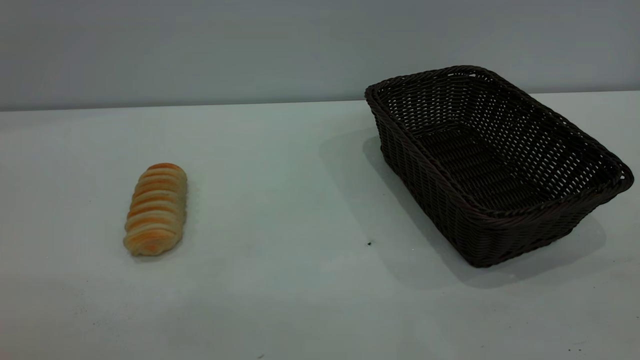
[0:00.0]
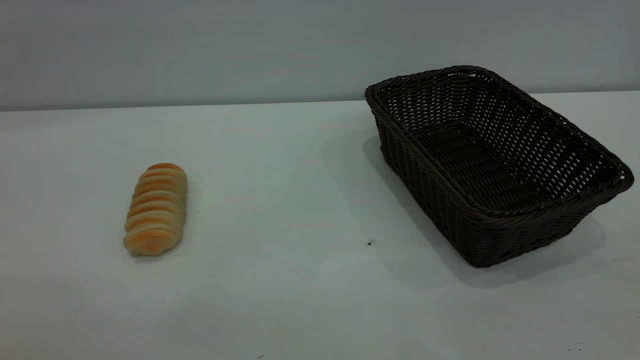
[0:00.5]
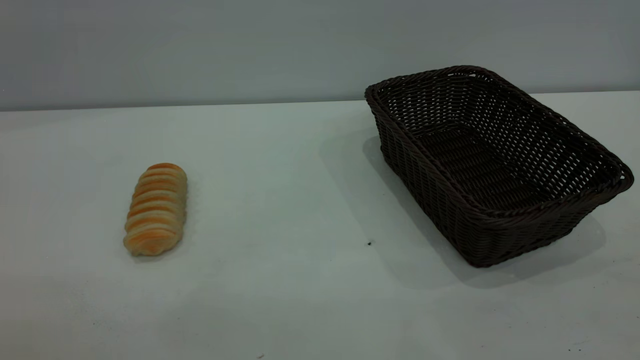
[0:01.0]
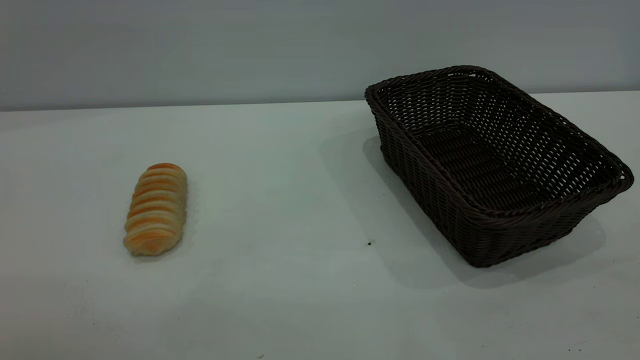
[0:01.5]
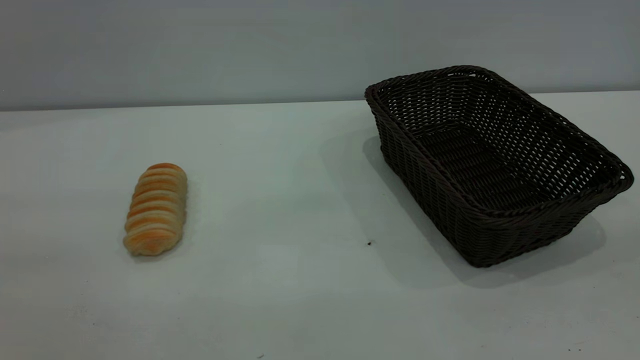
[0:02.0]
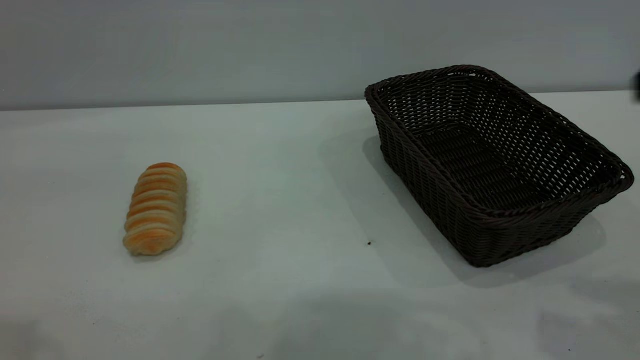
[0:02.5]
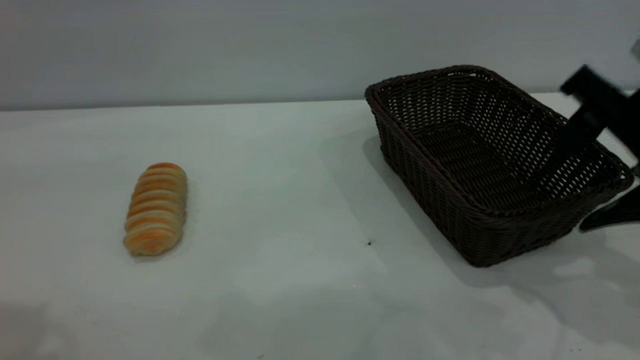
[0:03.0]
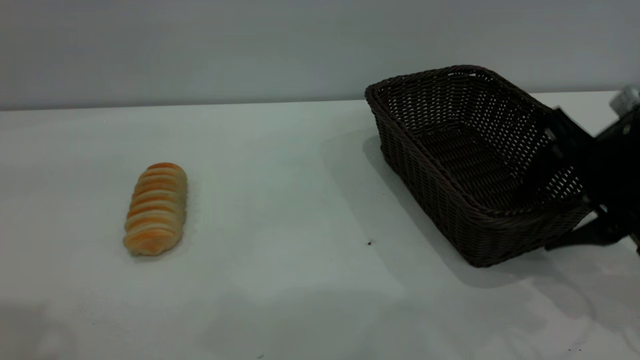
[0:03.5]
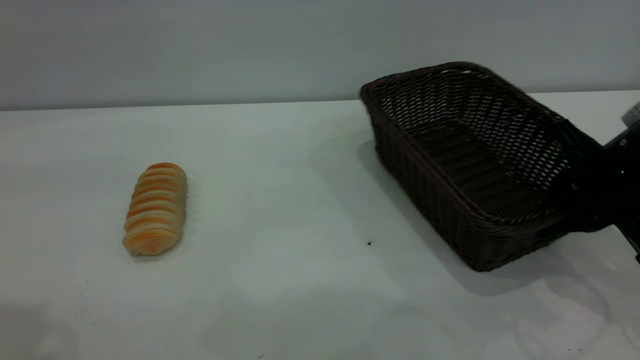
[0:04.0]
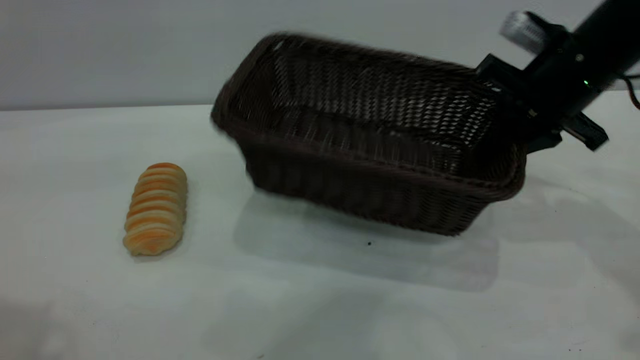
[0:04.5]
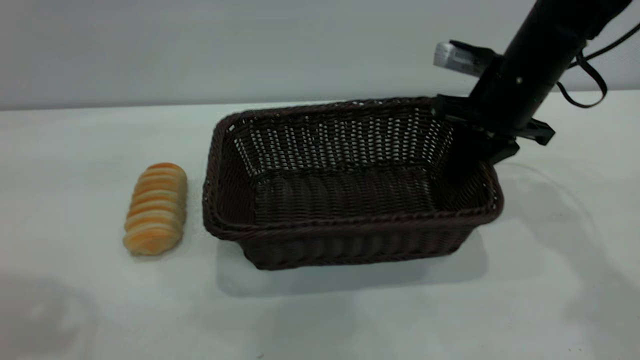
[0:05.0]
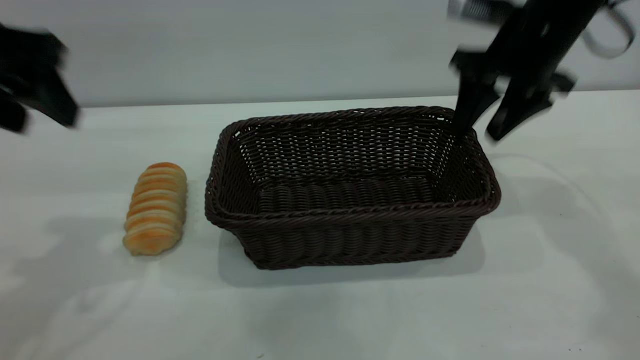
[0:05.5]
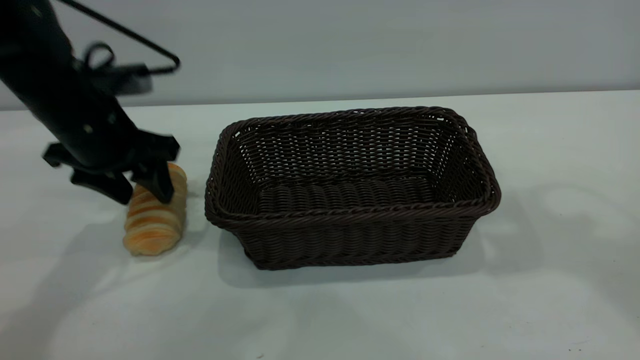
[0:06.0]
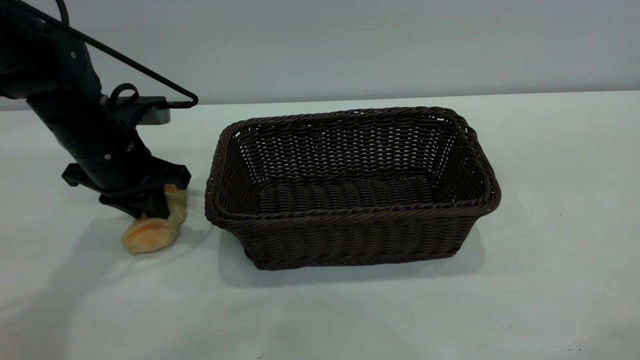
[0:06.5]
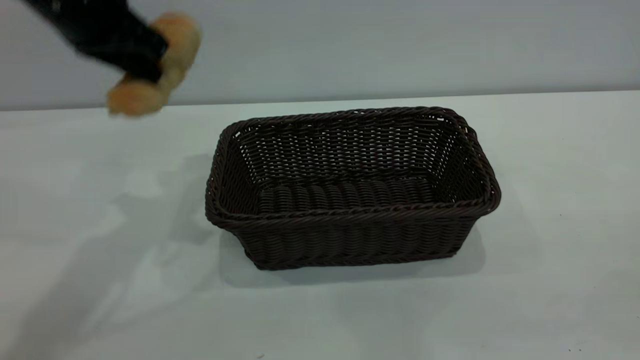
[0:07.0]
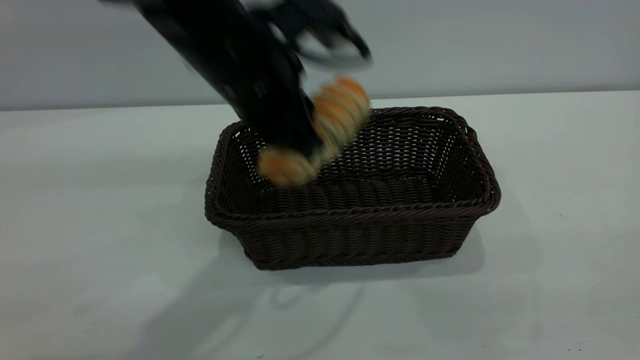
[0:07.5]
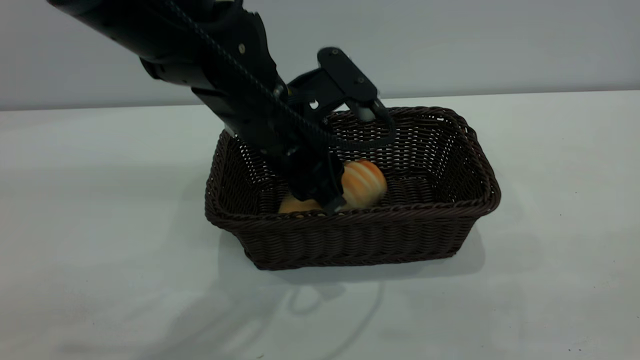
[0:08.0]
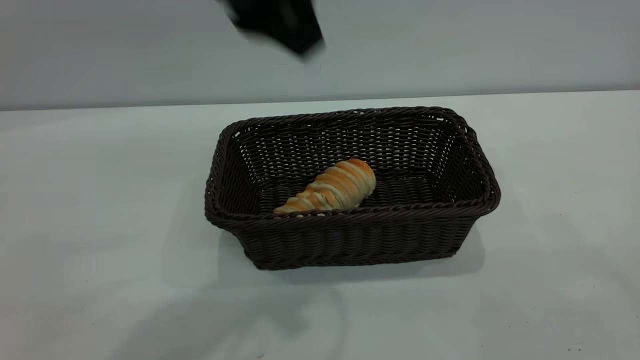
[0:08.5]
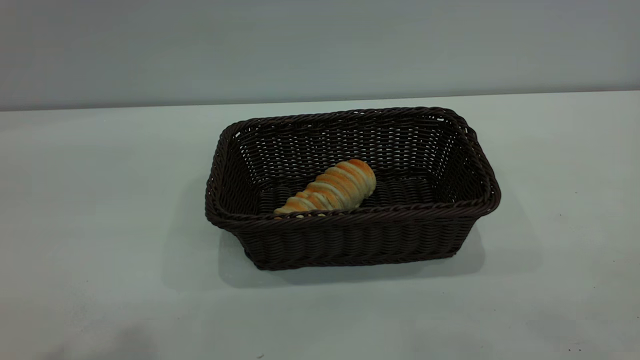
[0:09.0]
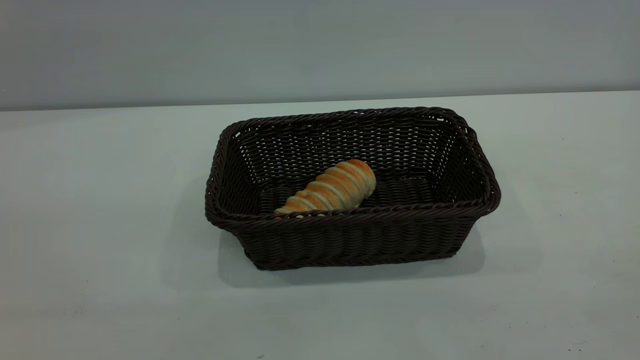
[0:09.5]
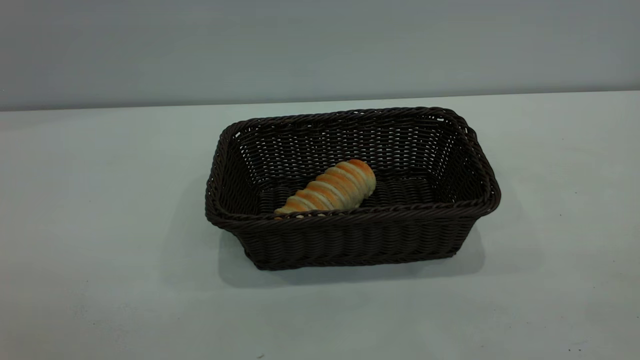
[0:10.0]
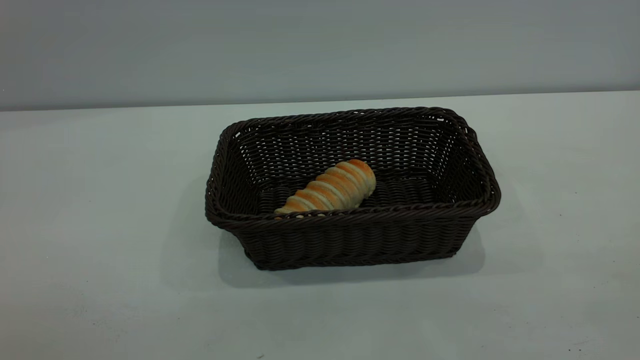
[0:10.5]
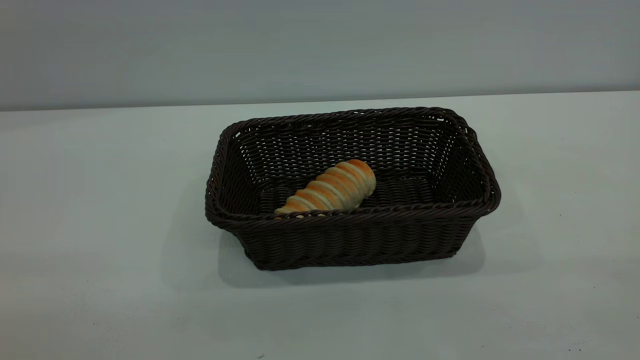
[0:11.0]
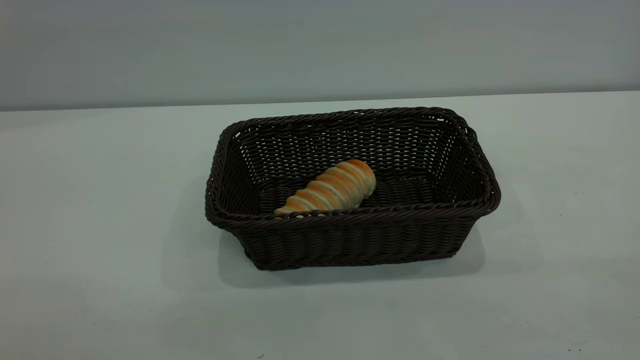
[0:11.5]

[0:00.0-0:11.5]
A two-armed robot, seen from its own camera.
Task of the whole recording: One hand grasps the black basket and places it in the middle of the table, while the other hand picks up the long bread and puts it into the black basket.
Step, 0:00.0 to 0:05.0: Move the basket to the center of view.
Step, 0:07.0 to 0:08.0: place the bread into the basket.
0:02.0 to 0:04.0: The right gripper shifts approximately 35 cm downward and forward, and closes up, while the left gripper heads forward, covering roughly 10 cm.
0:04.0 to 0:06.0: The right gripper goes approximately 30 cm upward, and opens its fingers, while the left gripper goes roughly 35 cm downward and forward.
0:06.0 to 0:07.5: The left gripper goes roughly 20 cm to the right, and closes its fingers; the right gripper is displaced backward and downward by approximately 30 cm.
0:07.5 to 0:09.5: The left gripper goes about 35 cm backward, to the left and upward, and opens up.

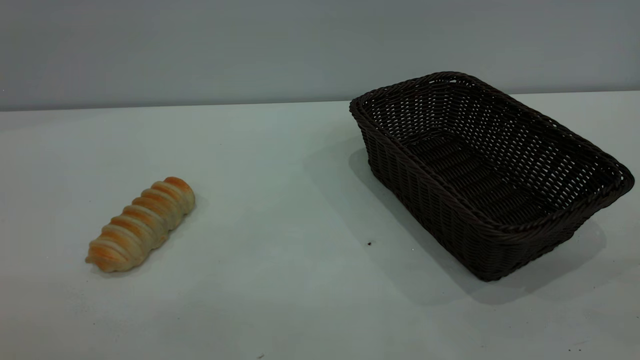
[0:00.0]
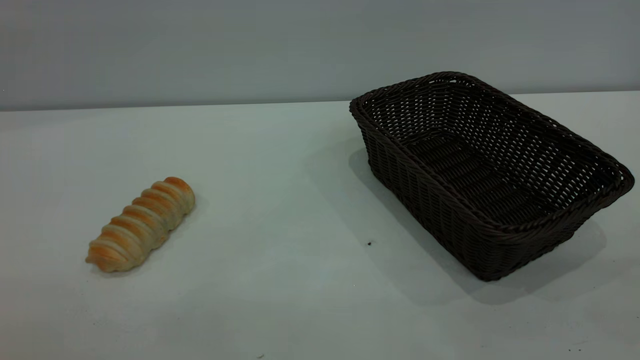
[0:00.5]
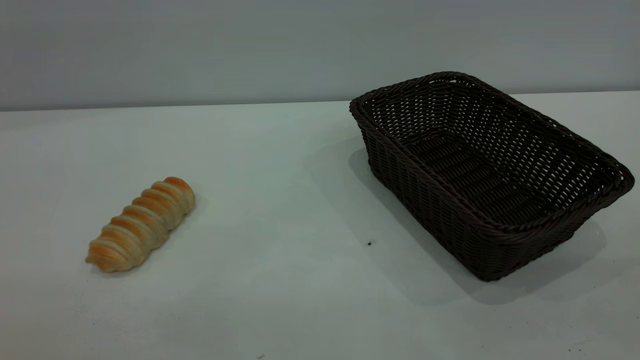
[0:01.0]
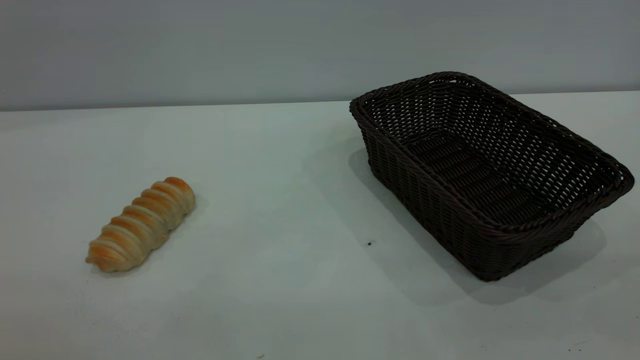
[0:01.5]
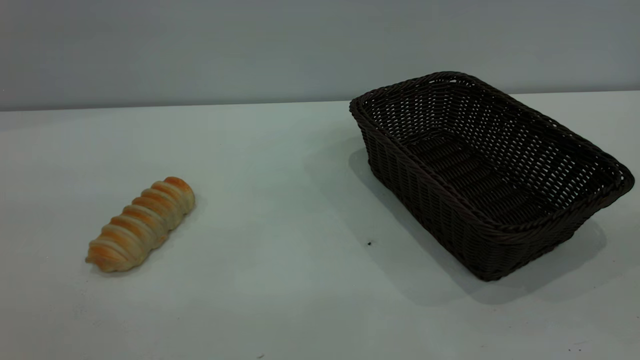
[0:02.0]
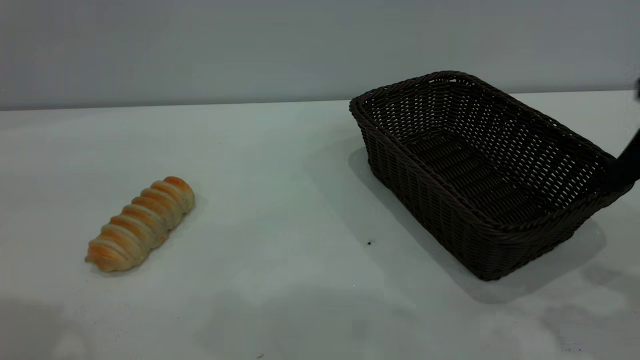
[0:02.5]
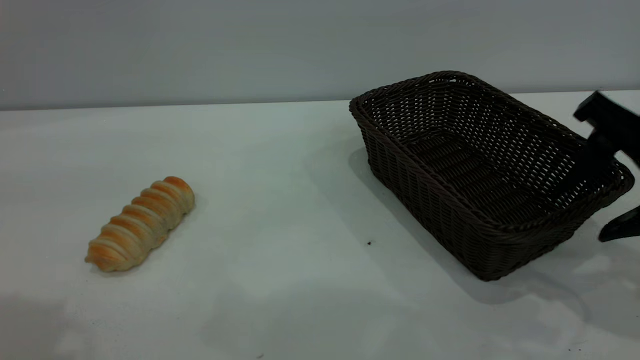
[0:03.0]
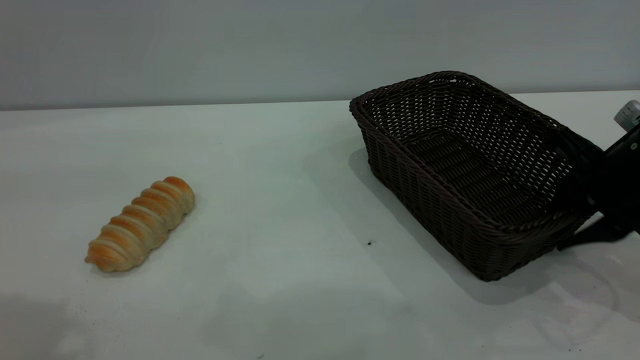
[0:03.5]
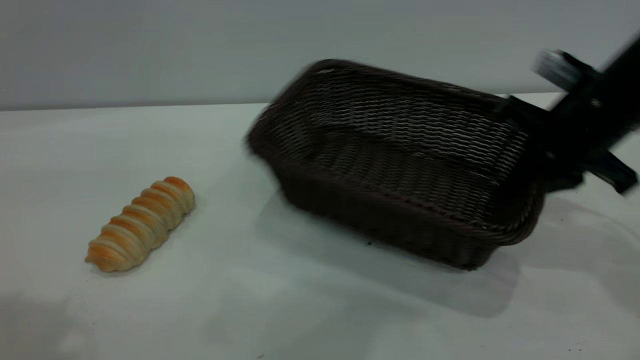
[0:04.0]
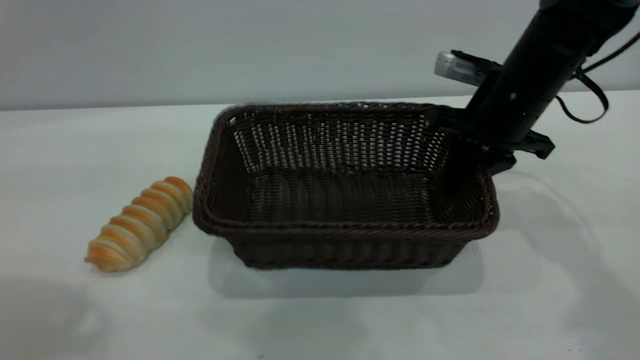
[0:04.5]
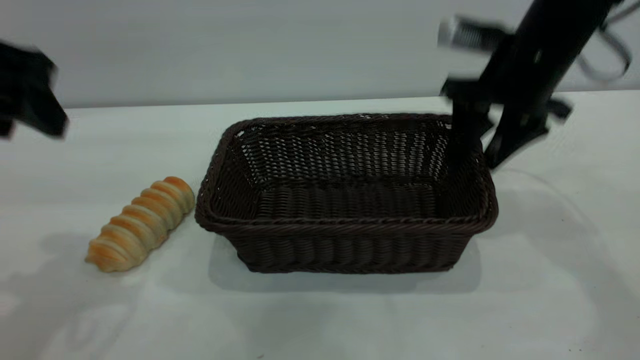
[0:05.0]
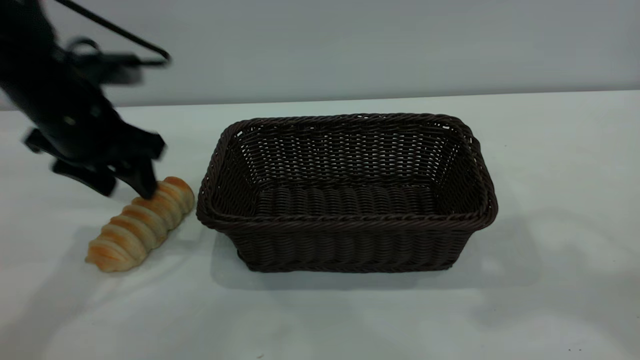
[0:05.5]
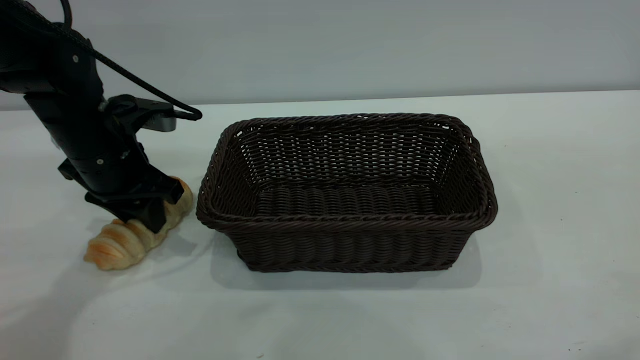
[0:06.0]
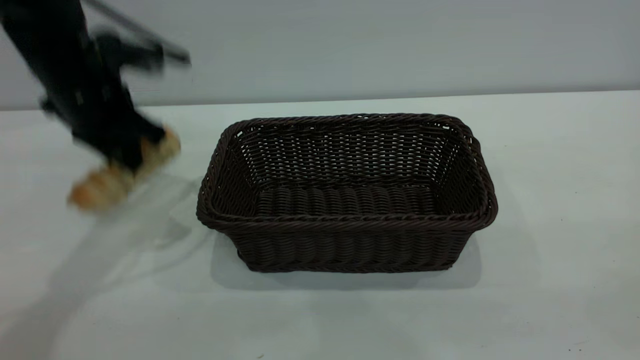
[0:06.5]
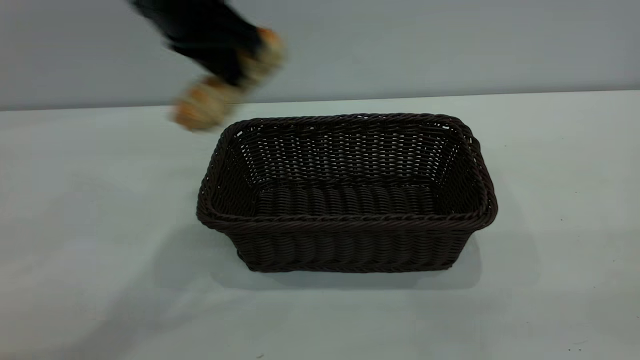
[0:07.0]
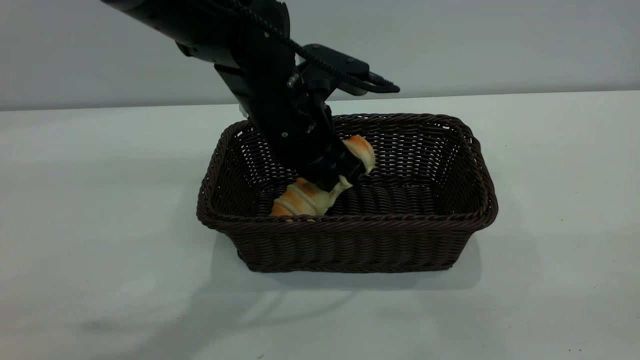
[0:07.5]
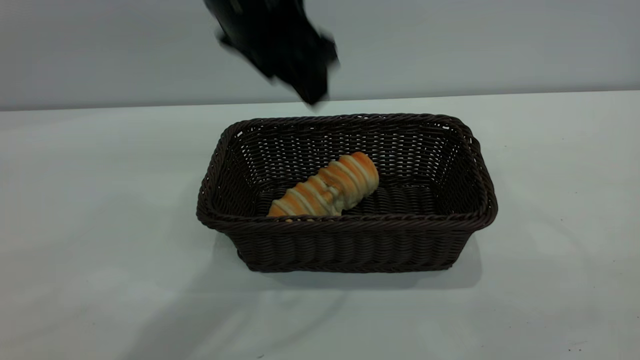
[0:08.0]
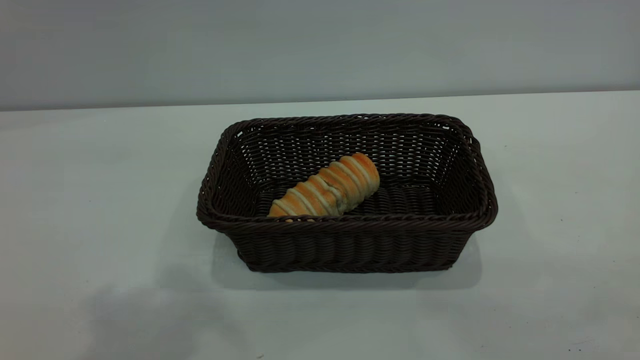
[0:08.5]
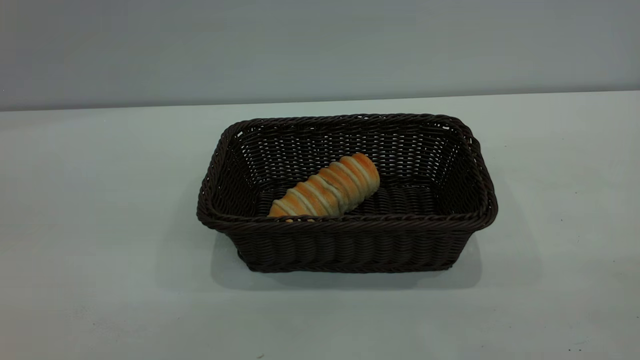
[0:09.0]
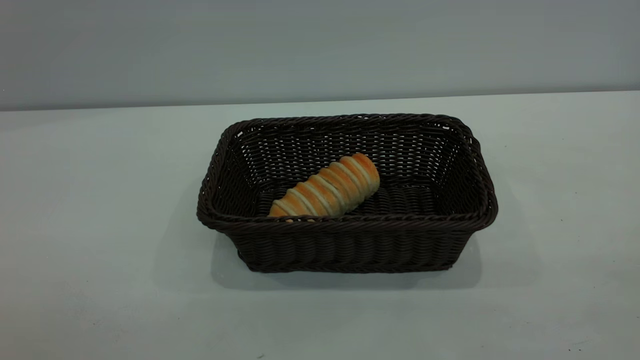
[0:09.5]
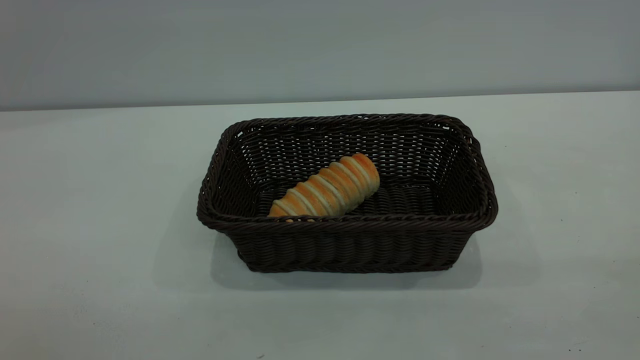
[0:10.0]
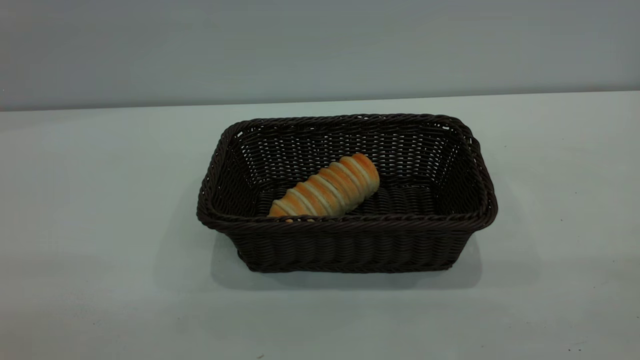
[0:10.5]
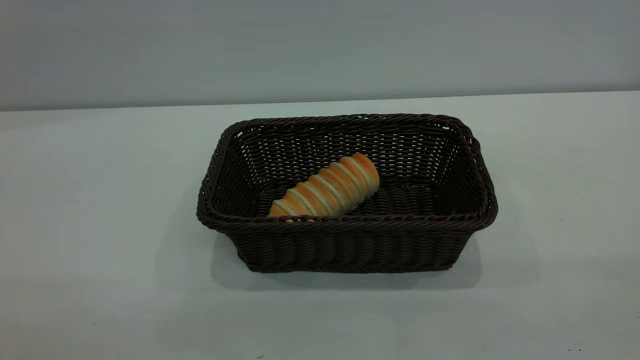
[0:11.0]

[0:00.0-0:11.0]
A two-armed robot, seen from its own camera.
Task of the whole recording: One hand grasps the black basket and places it in the middle of the table, while the other hand picks up the long bread and puts it into the black basket.
Step, 0:00.0 to 0:05.0: Move the basket to the center of view.
Step, 0:07.0 to 0:07.5: place the bread into the basket.
0:02.0 to 0:03.5: The right gripper heads downward and forward, covering approximately 30 cm, and closes.
0:03.5 to 0:05.5: The left gripper heads downward and forward, covering roughly 30 cm. The right gripper heads upward, covering roughly 30 cm, and opens up.
0:05.5 to 0:07.5: The left gripper moves to the right, about 20 cm, and closes up. The right gripper moves backward and downward, approximately 30 cm.
0:07.5 to 0:09.0: The left gripper travels upward, backward and to the left by about 40 cm, and opens its fingers.
